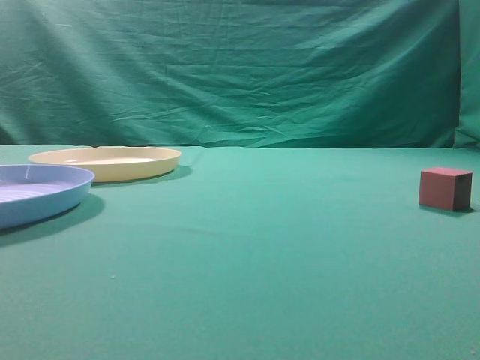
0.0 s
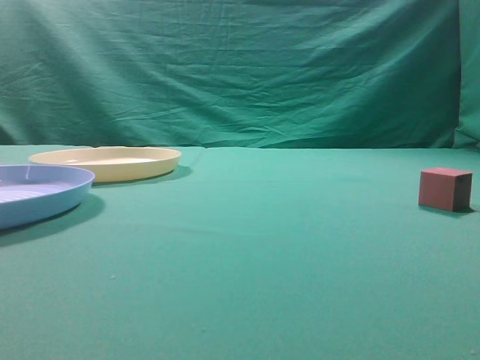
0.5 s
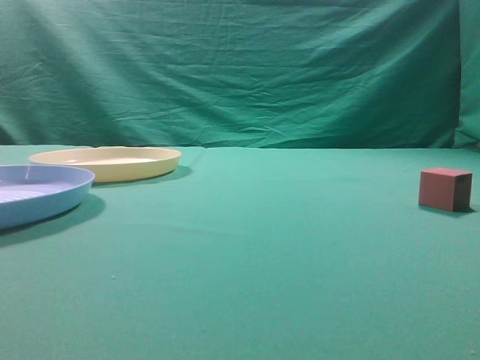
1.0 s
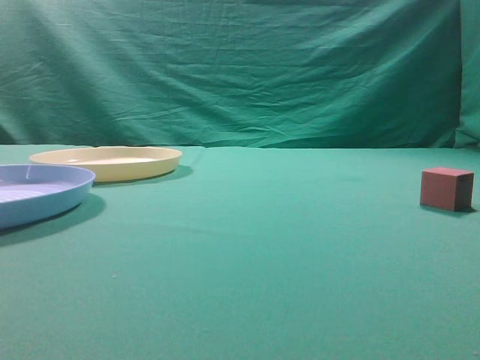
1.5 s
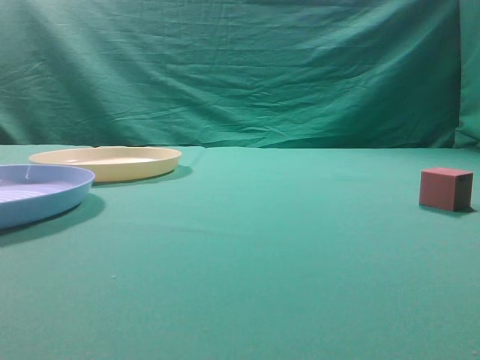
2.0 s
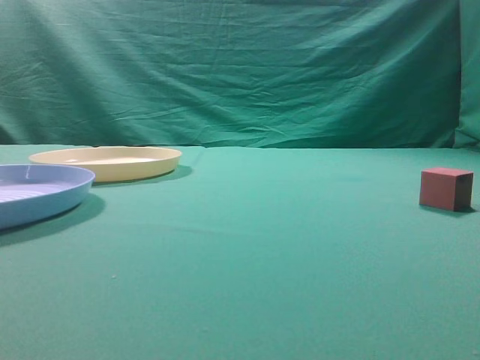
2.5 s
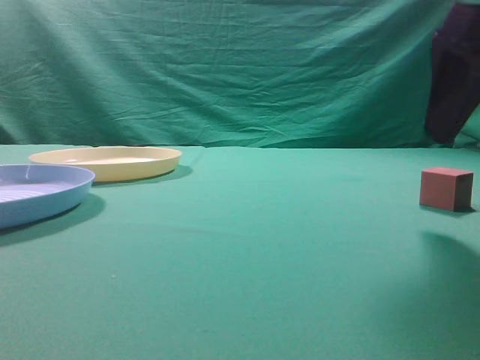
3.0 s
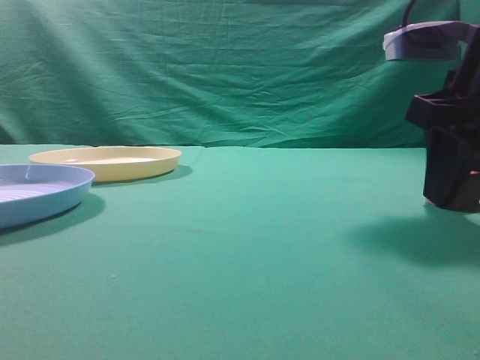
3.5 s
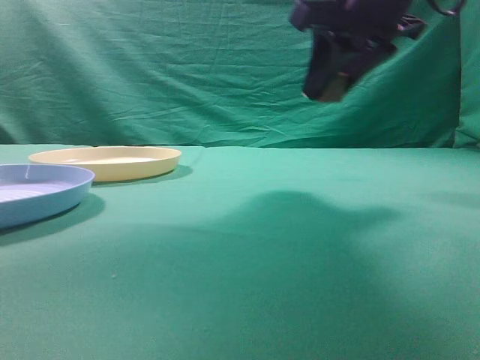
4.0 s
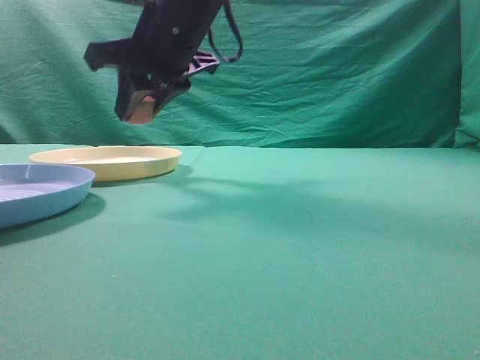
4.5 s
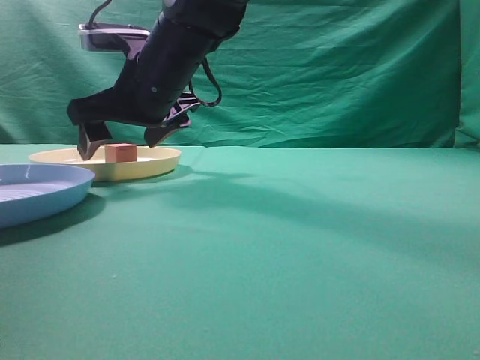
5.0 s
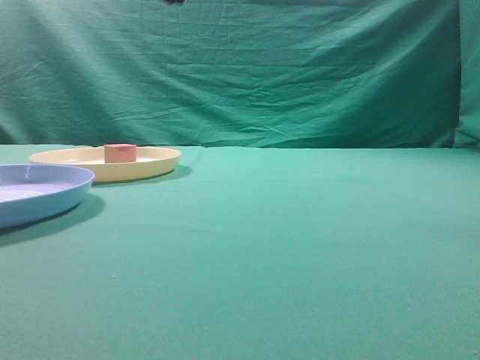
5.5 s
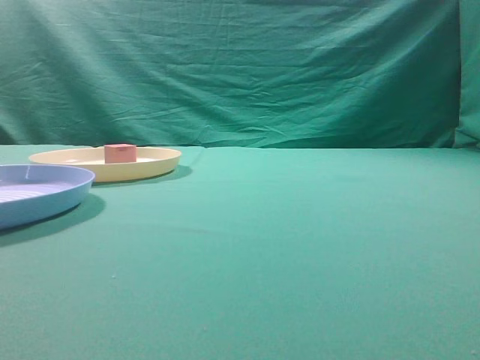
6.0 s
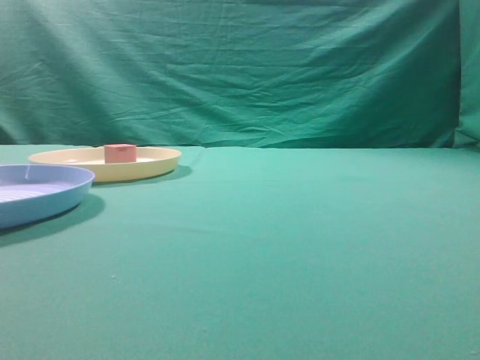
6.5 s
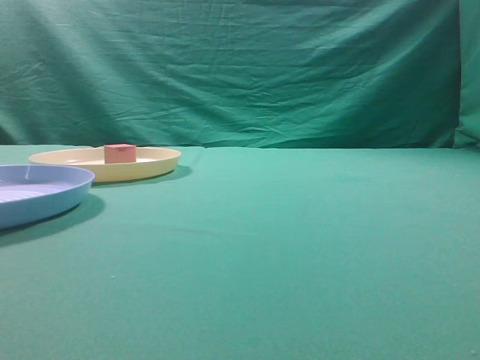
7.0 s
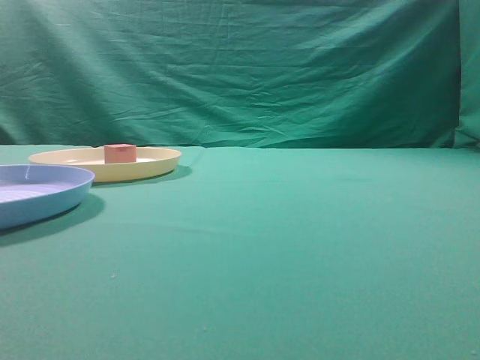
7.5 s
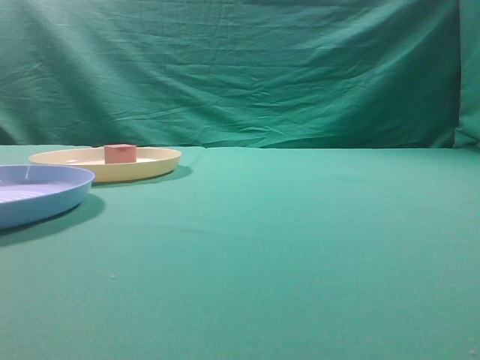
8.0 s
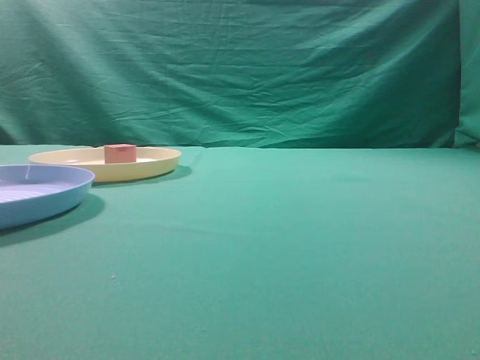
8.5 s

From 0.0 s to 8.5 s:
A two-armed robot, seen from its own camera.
Task of the whole recording: pick up the cube block from the table and put it on the plate.
Step, from 0.0 s to 3.5 s: Grasp the small cube on the table.
Step, from 4.0 s to 5.0 s: Place it into the yellow plate.
From 2.0 s to 4.0 s: The right gripper travels forward and to the left by approximately 30 cm, and opens up.
From 4.0 s to 6.5 s: The right gripper goes up and down, some 30 cm each way, reversing 2 times, and closes.
